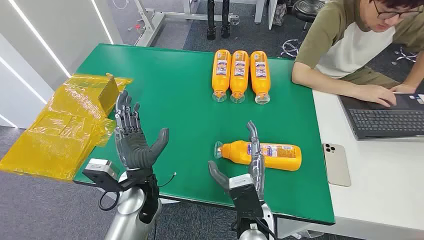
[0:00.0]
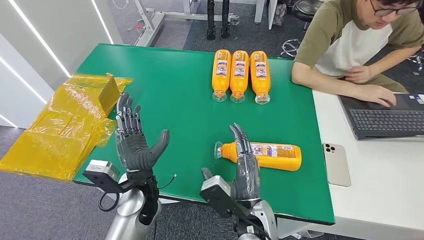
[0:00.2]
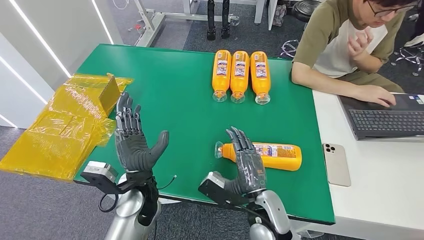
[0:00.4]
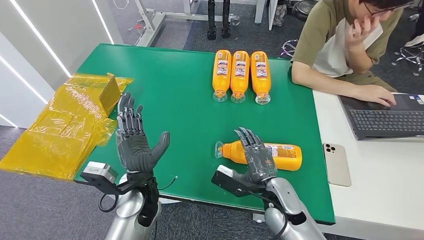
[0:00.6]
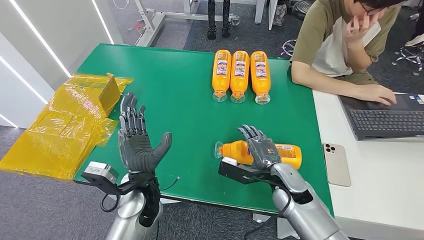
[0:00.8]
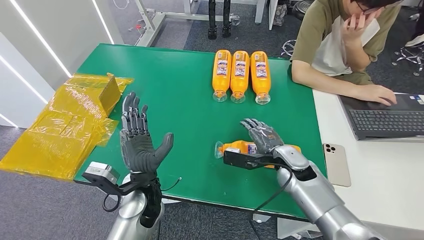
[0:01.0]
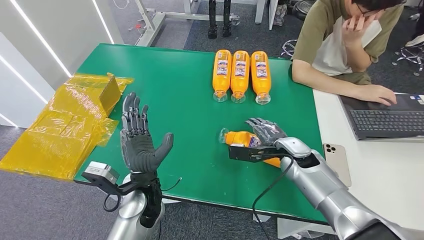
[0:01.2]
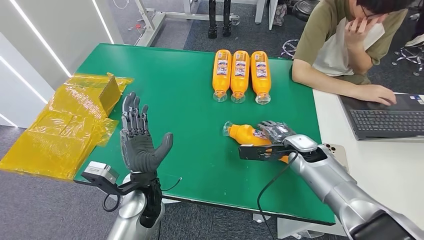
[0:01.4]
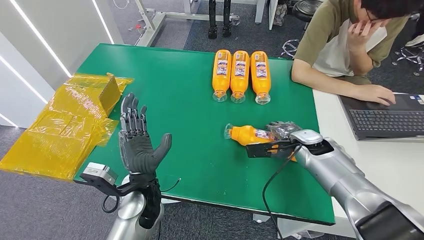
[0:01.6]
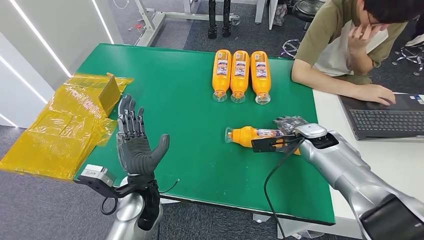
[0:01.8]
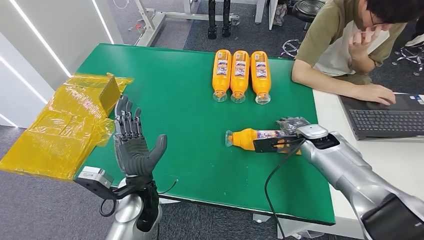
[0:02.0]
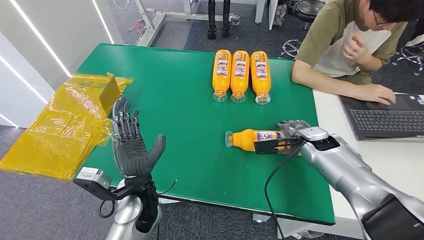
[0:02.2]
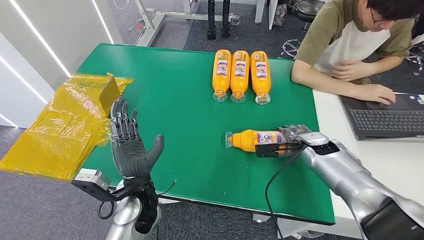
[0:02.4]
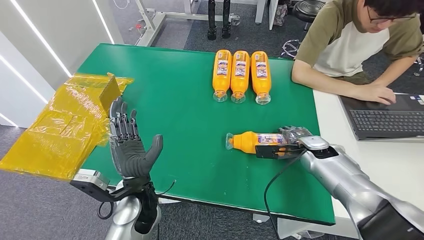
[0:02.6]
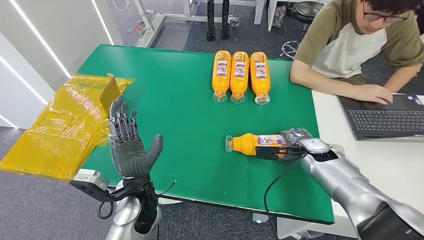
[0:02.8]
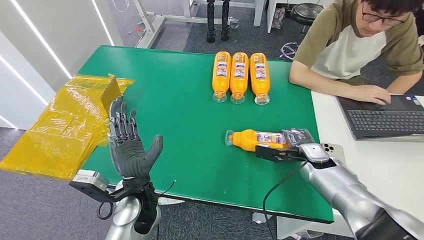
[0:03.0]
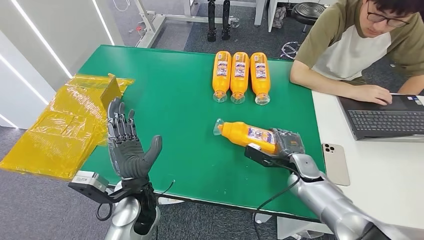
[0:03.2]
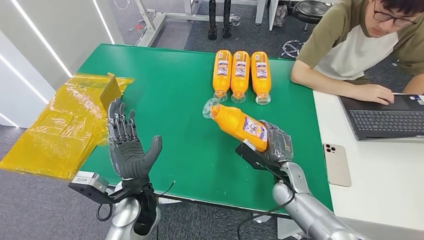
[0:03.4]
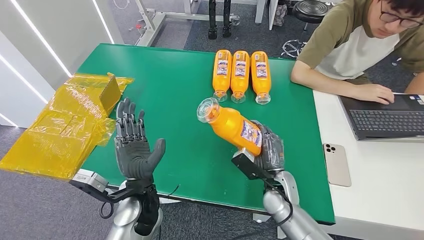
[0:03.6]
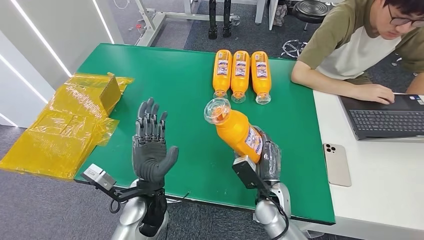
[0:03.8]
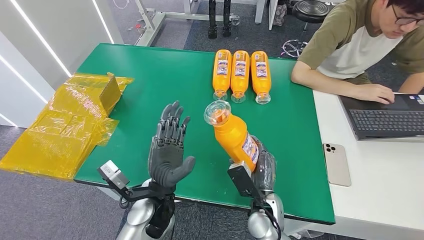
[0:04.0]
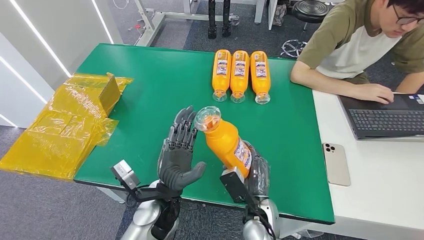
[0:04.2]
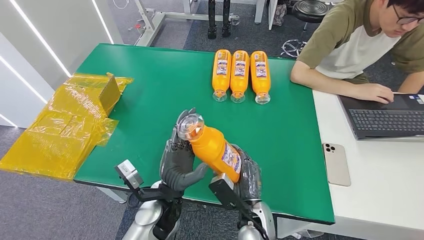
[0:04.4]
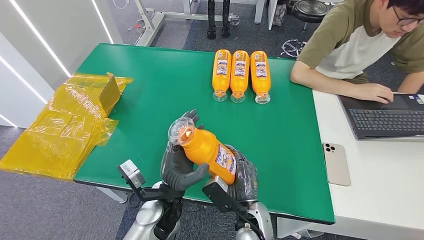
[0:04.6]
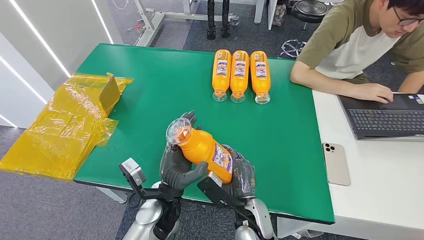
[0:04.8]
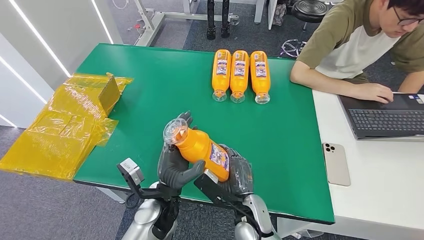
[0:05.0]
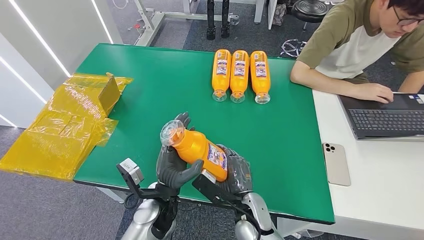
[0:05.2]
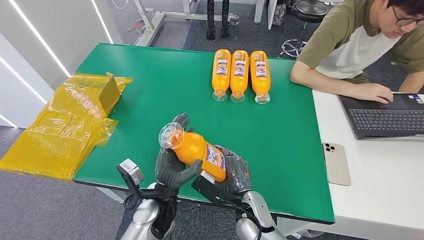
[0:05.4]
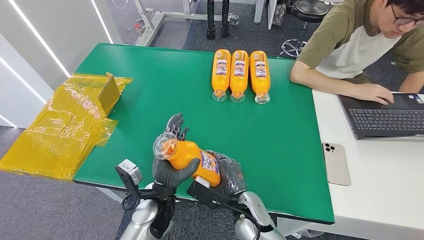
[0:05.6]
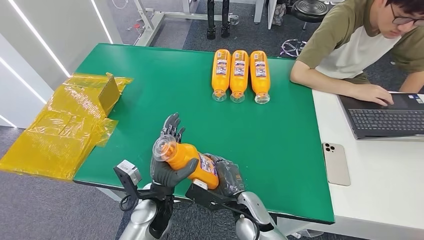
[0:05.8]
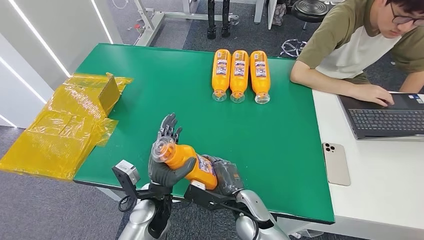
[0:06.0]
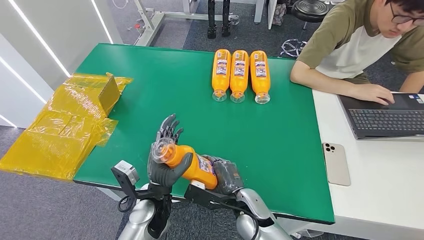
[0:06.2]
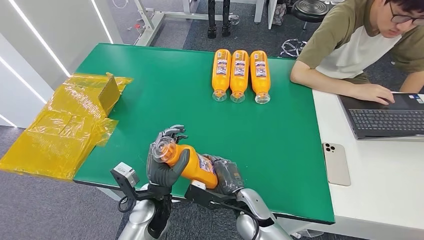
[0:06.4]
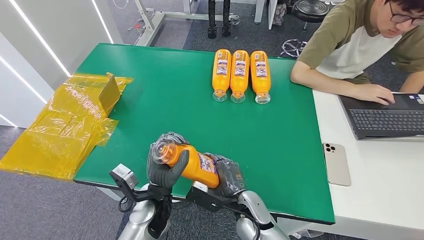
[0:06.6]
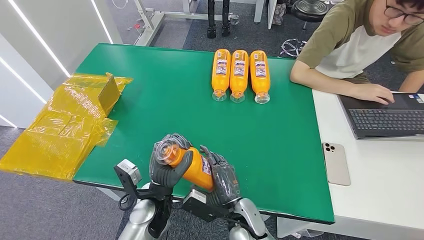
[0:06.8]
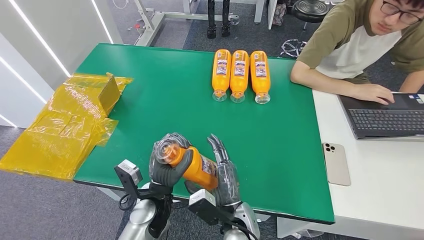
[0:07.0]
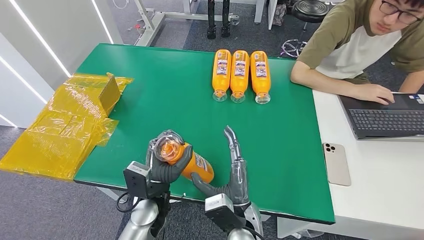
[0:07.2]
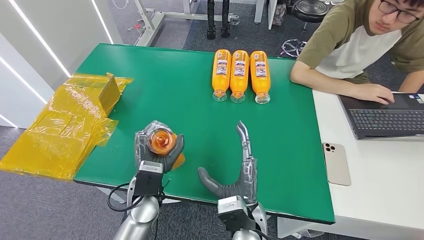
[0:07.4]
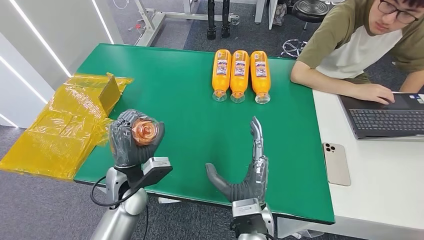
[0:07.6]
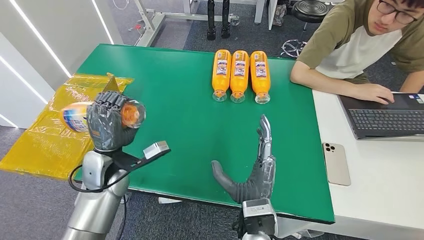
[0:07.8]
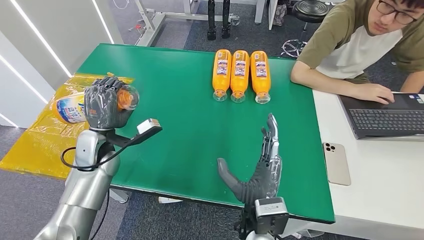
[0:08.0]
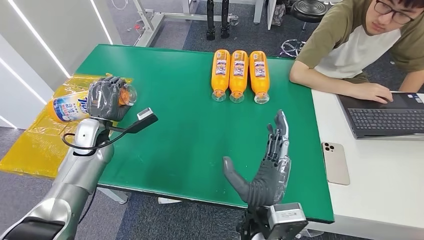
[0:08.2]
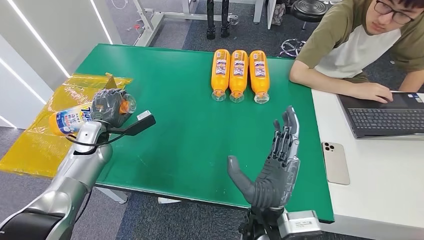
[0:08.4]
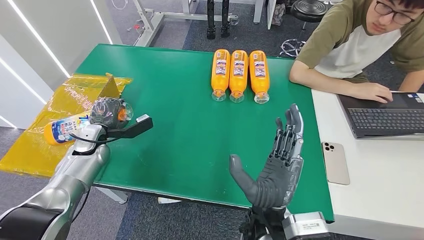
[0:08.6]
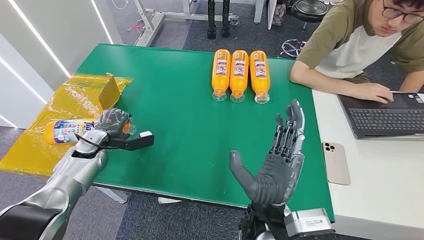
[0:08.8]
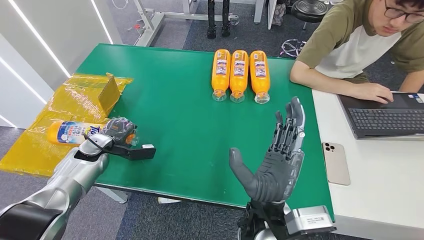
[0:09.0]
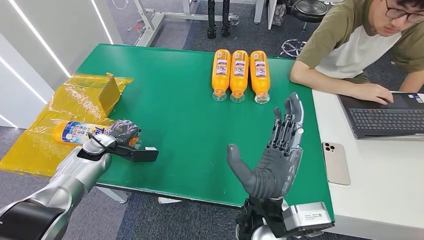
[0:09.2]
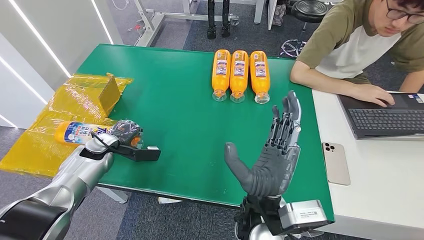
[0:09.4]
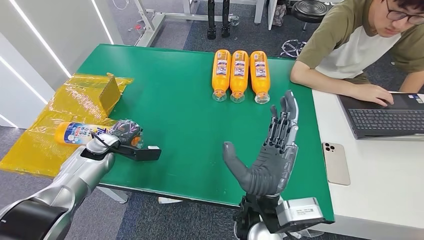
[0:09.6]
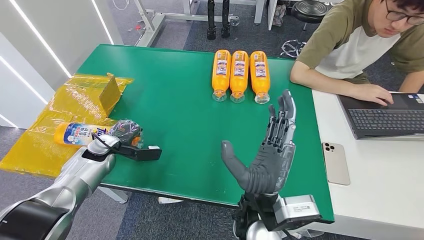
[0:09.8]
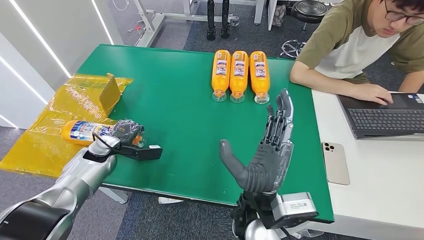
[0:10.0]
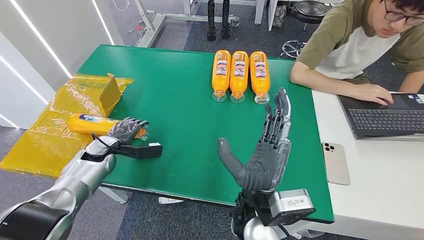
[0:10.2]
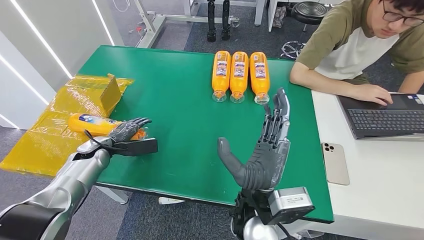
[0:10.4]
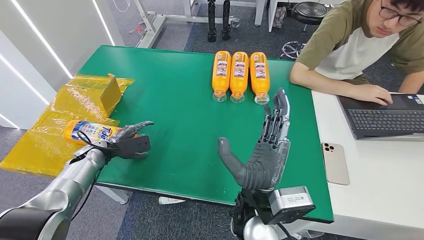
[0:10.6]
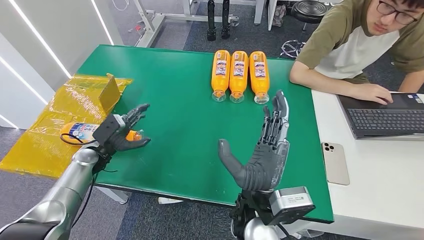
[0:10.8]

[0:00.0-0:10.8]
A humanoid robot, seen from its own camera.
Step, 0:00.0 to 0:03.8: Pick up the bottle from the table.
Step, 0:04.0 to 0:10.8: Turn the bottle to the front side.
0:06.2 to 0:07.8: The left hand goes some 15 cm to the left, upward and forward. Meanwhile the right hand heads upward, covering approximately 10 cm.
0:07.8 to 0:09.2: The right hand is displaced upward by some 5 cm. Meanwhile the left hand shifts about 15 cm to the left, downward and forward.

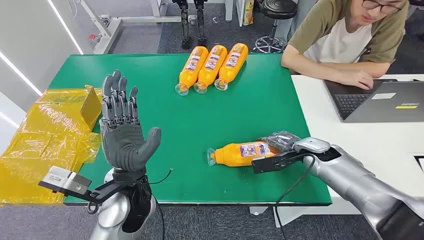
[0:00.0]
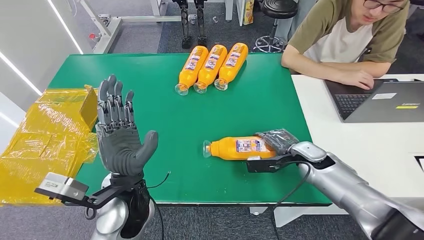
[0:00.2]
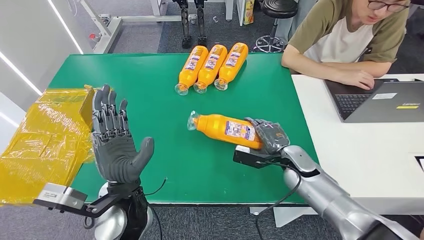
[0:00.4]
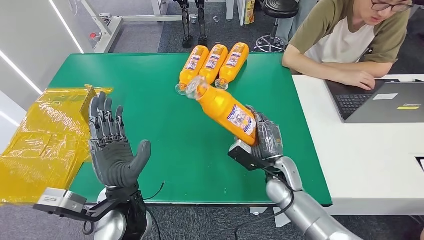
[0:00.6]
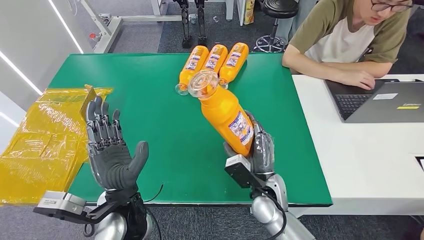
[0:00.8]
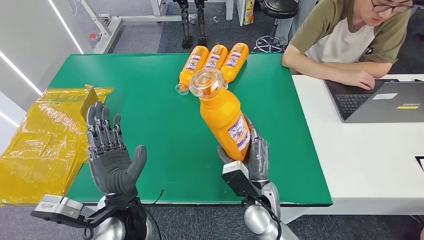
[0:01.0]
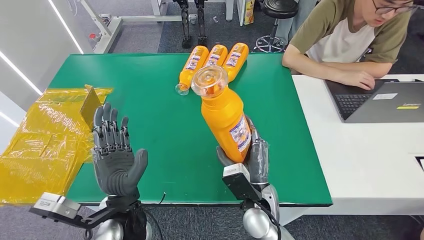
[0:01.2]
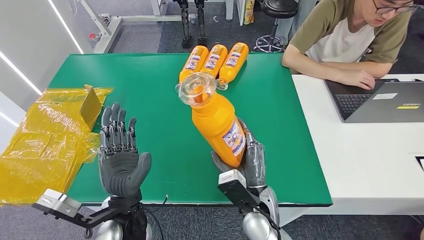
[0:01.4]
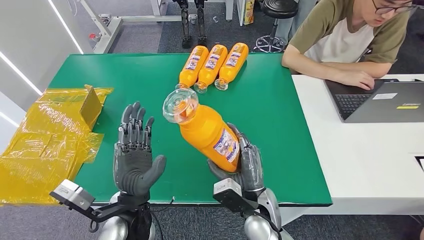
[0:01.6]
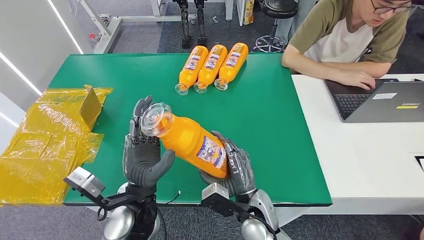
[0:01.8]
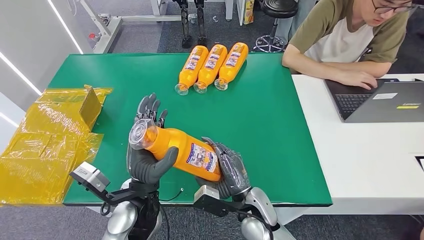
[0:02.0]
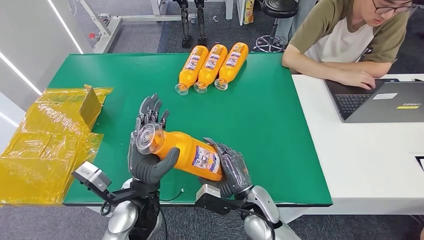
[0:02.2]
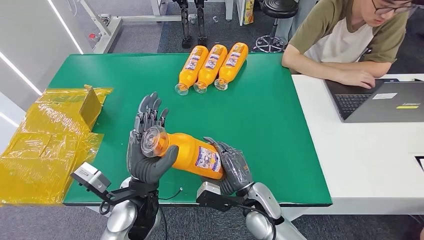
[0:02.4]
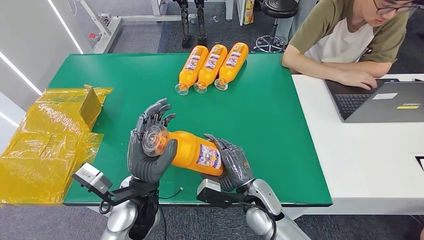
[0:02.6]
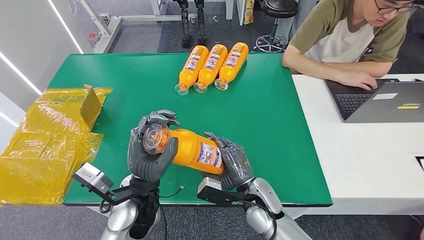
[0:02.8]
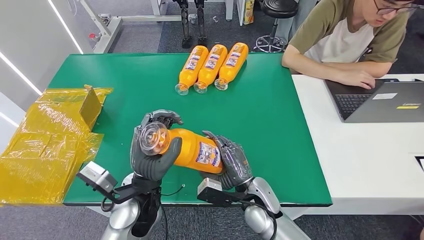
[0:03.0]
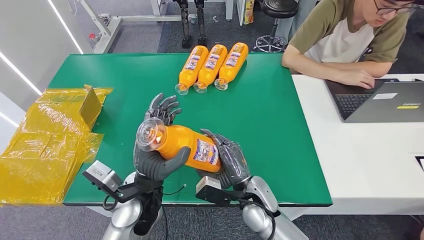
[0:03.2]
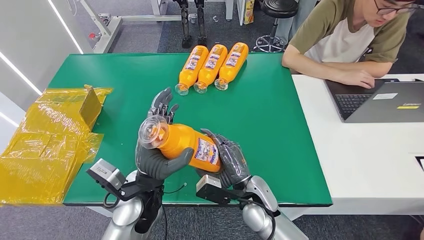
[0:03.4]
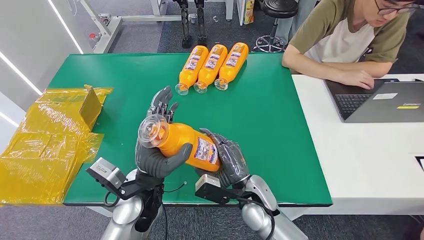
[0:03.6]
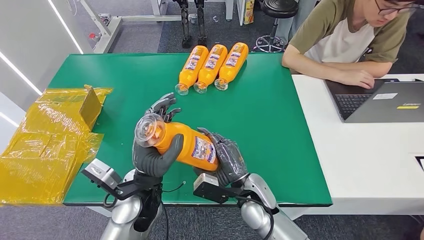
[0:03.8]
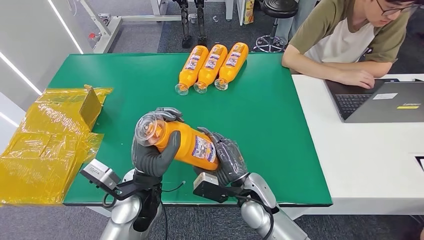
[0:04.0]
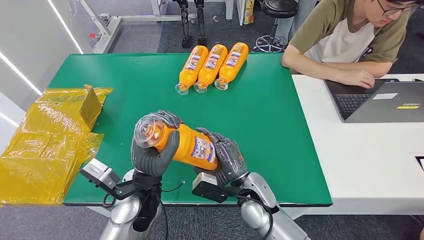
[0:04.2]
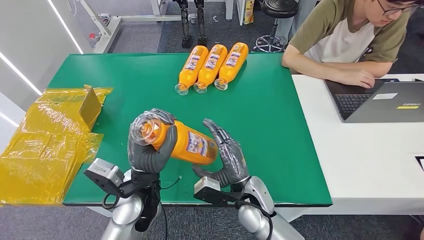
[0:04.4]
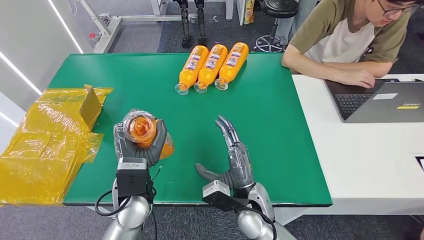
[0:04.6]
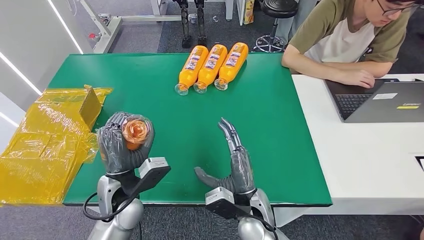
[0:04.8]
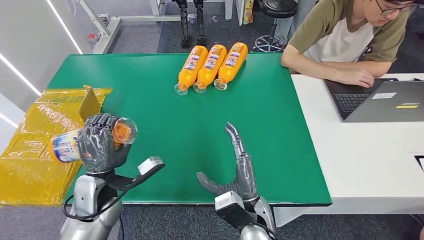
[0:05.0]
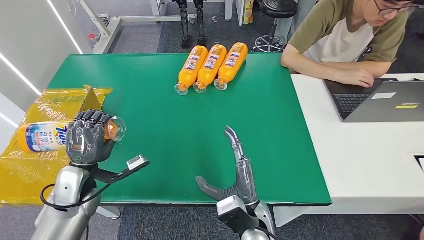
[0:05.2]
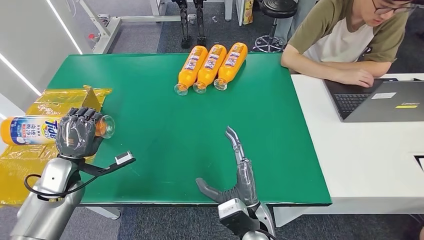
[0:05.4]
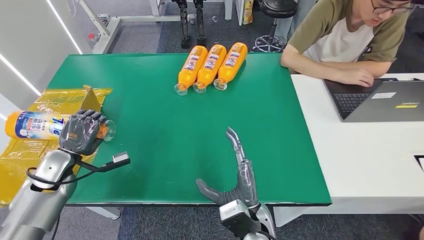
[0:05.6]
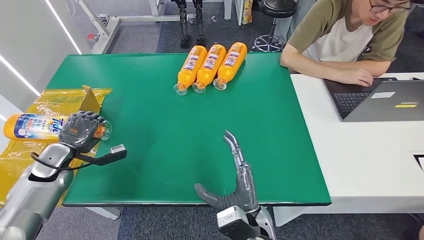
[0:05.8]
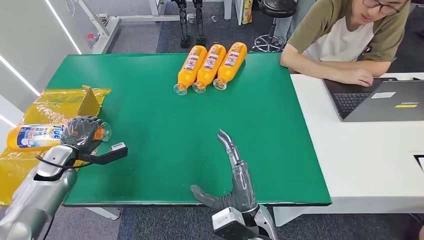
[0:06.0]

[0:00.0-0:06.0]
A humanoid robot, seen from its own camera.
Step, 0:00.0 to 0:02.8: Pick up the bottle from the table.
Step, 0:03.0 to 0:05.8: Turn the bottle to the front side.
0:03.0 to 0:04.4: There are only small adjustments of the hands.
